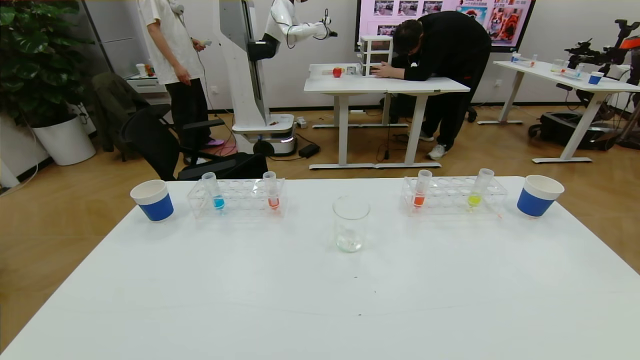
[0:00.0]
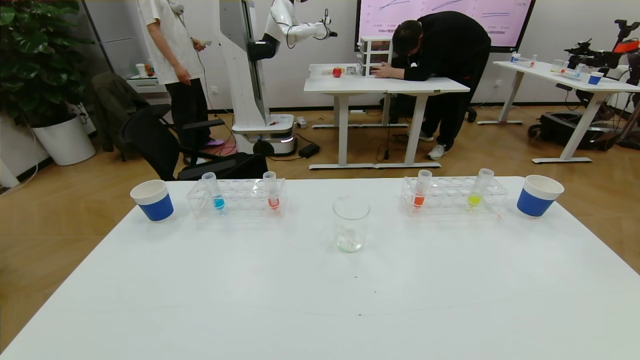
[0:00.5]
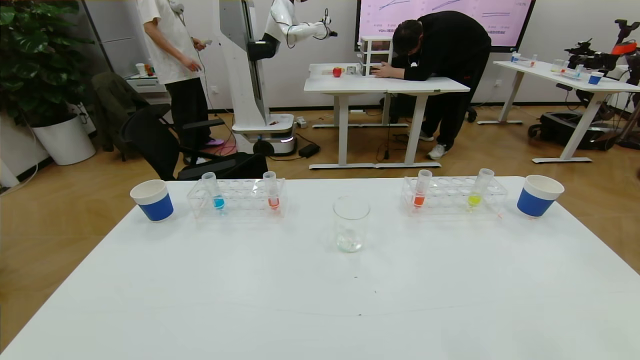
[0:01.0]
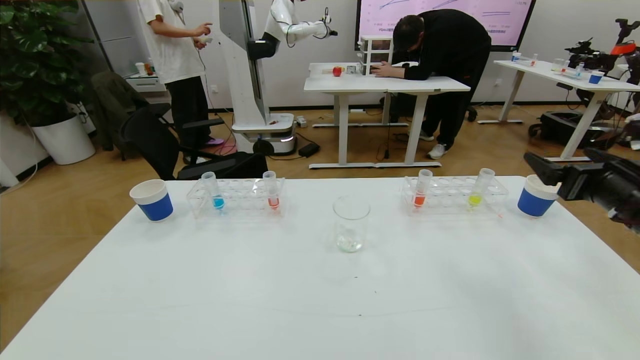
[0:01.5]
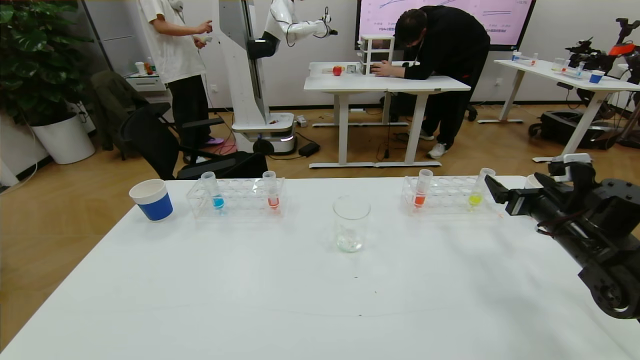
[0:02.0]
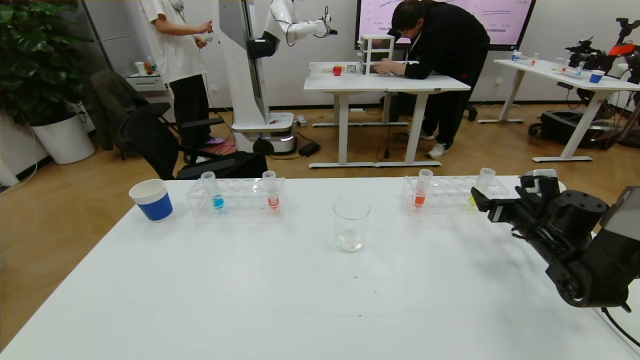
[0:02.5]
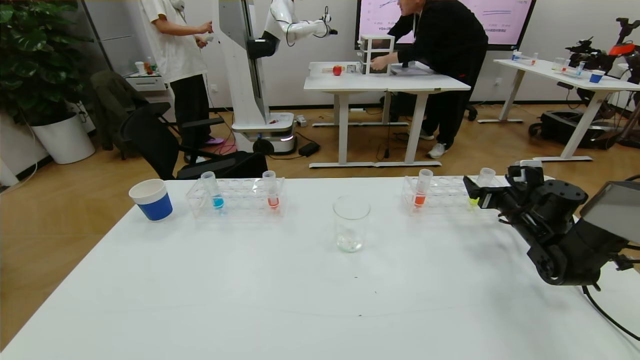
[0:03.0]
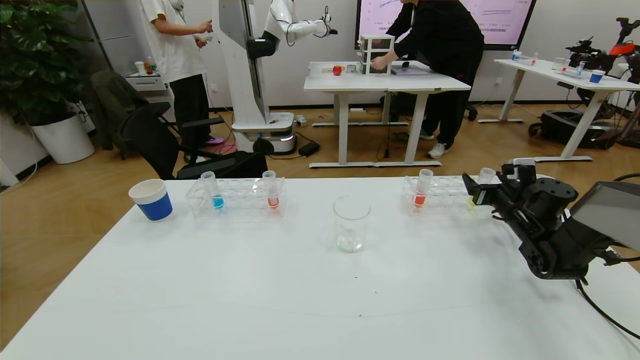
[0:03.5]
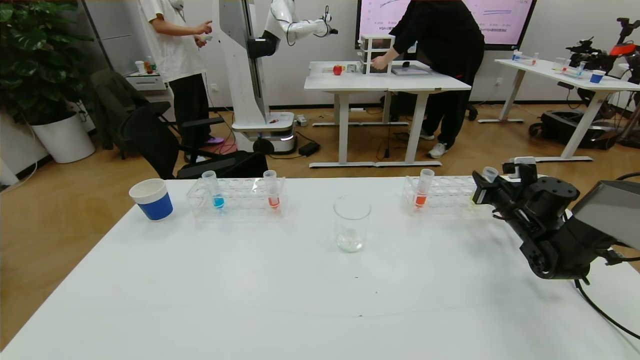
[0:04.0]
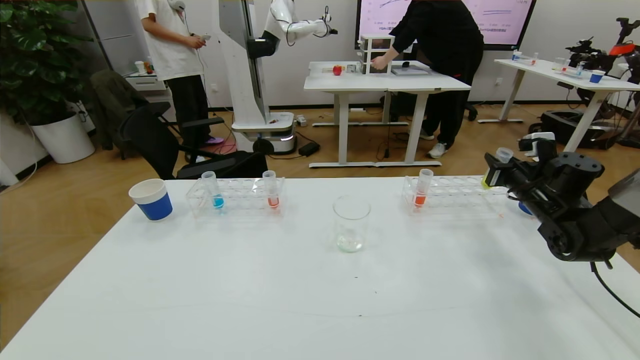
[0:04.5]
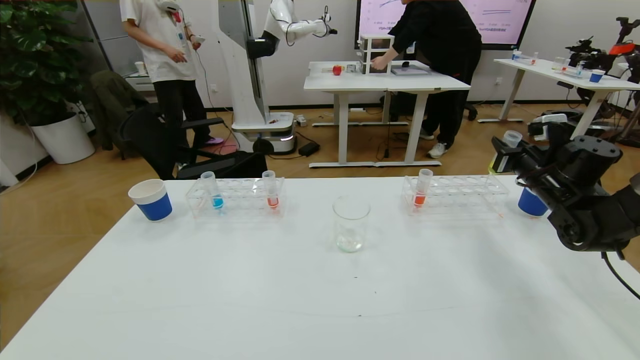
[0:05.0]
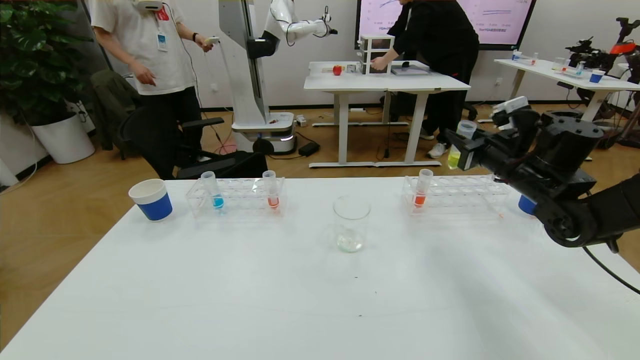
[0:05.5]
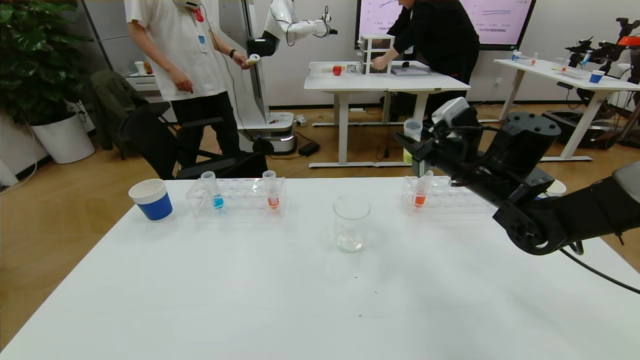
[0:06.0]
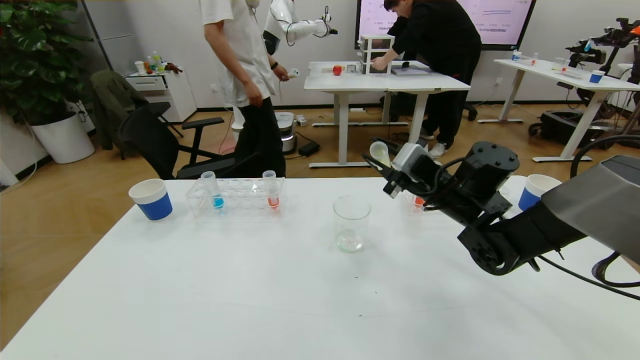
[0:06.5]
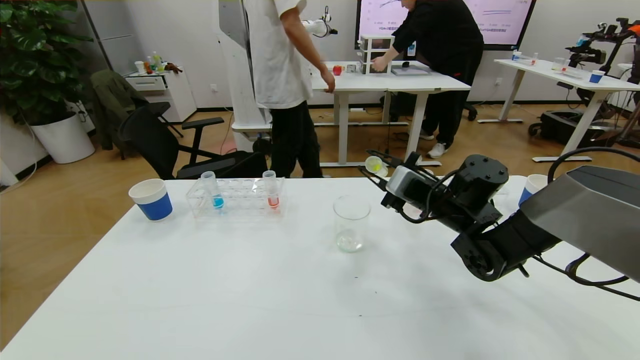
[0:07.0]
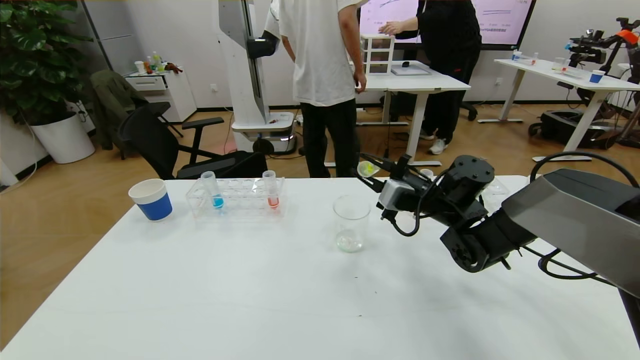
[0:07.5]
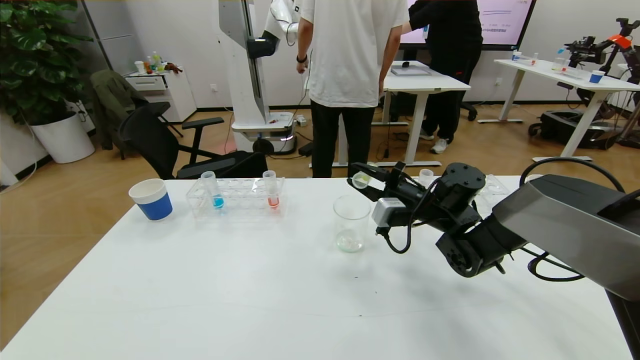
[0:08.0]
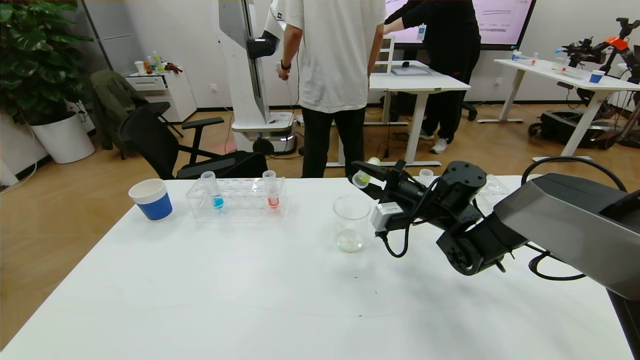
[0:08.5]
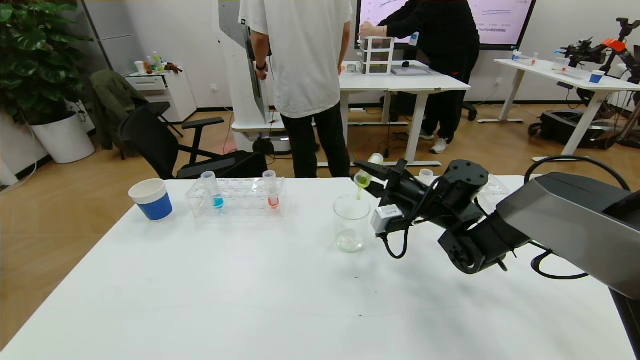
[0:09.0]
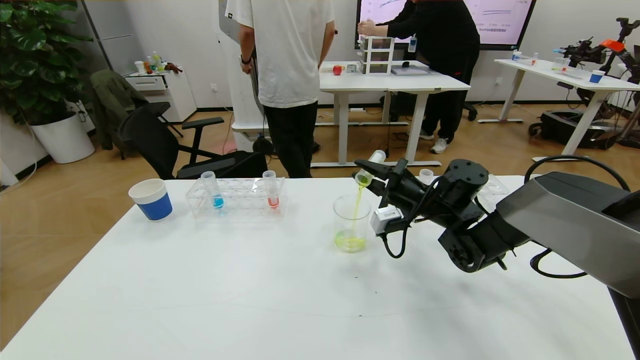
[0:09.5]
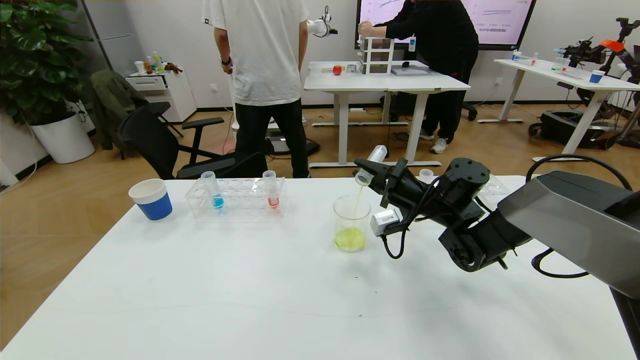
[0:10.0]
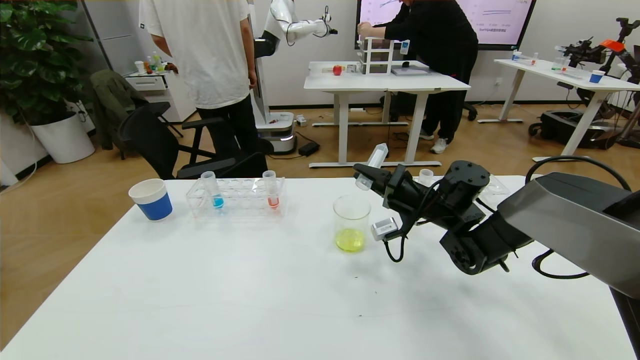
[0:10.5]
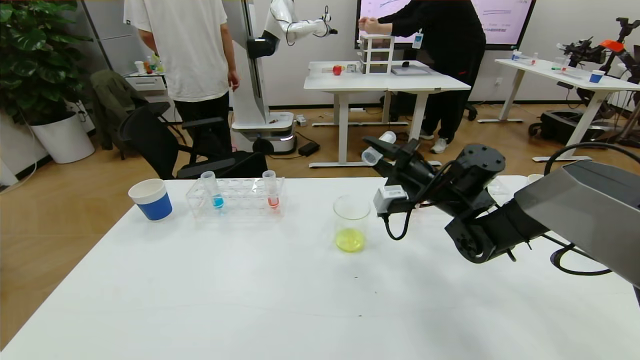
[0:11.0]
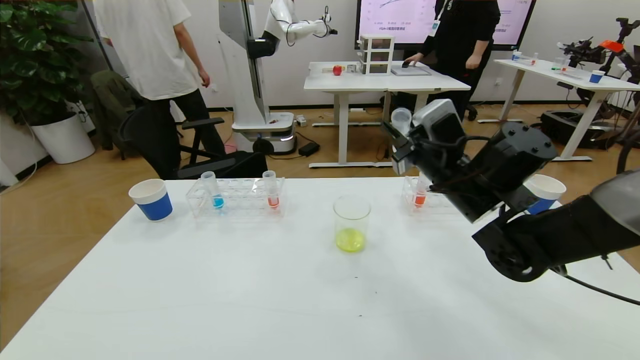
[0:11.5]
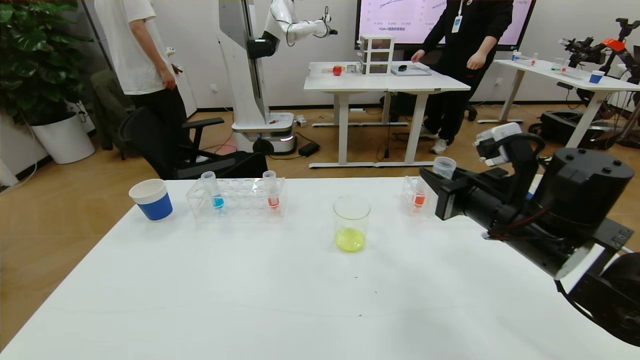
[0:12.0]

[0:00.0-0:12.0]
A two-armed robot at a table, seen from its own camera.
Task of the whole recording: pick up the test tube with yellow pigment and the test tube with blue pigment by grippers and pour them into the beaker.
0:00.0 to 0:02.0: The right gripper heads forward, covering approximately 35 cm.
0:02.0 to 0:04.0: The right gripper shifts about 10 cm forward, and closes its fingers.
0:04.0 to 0:06.0: The right gripper goes about 20 cm to the left and upward.
0:06.0 to 0:08.0: The right gripper is displaced downward by approximately 10 cm.
0:10.0 to 0:12.0: The right gripper heads backward and upward, covering roughly 15 cm.

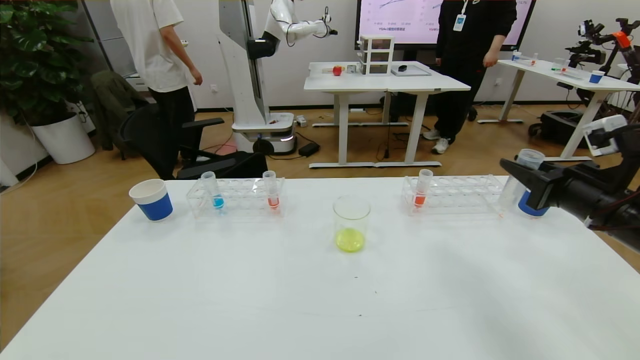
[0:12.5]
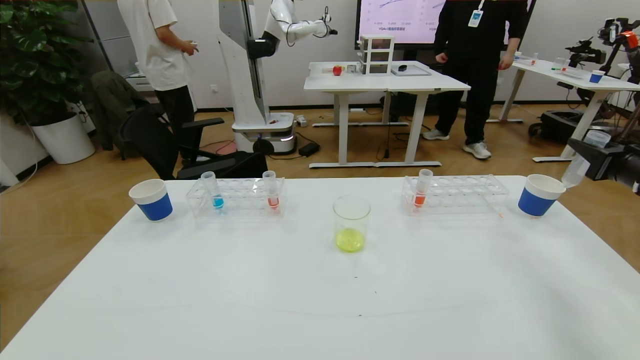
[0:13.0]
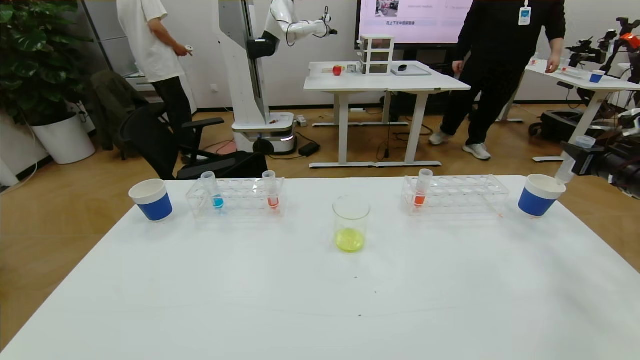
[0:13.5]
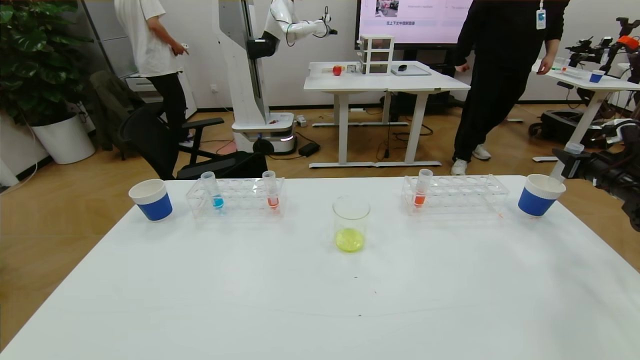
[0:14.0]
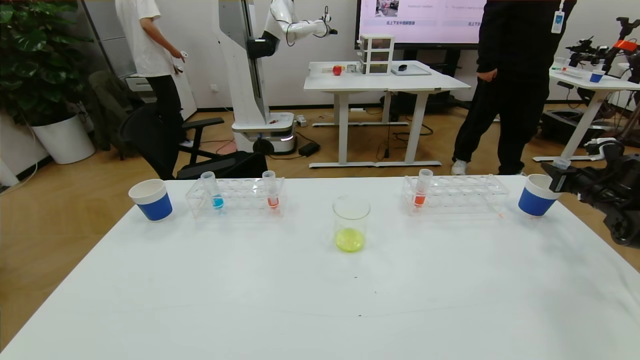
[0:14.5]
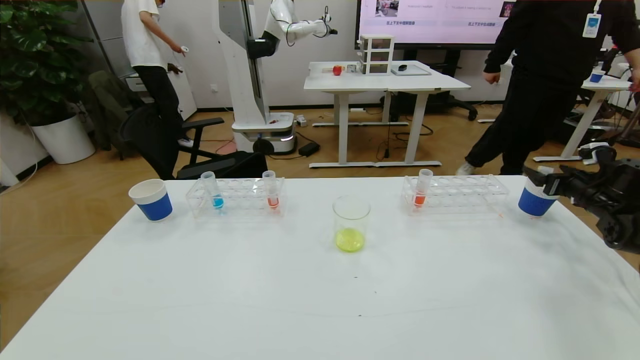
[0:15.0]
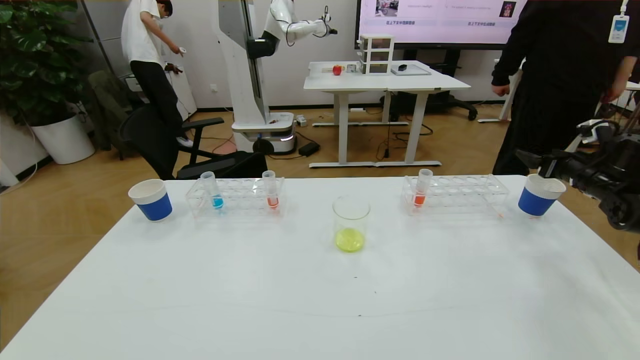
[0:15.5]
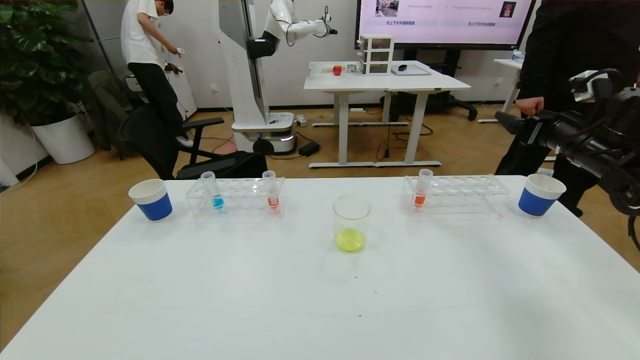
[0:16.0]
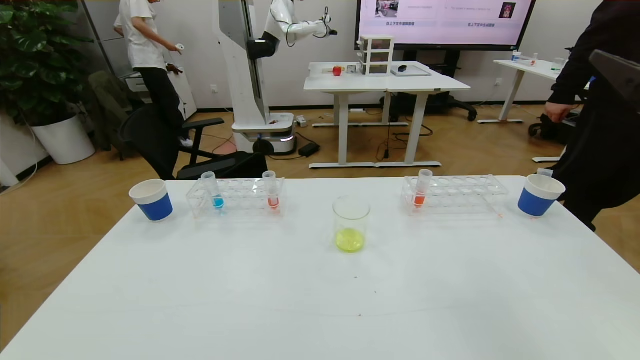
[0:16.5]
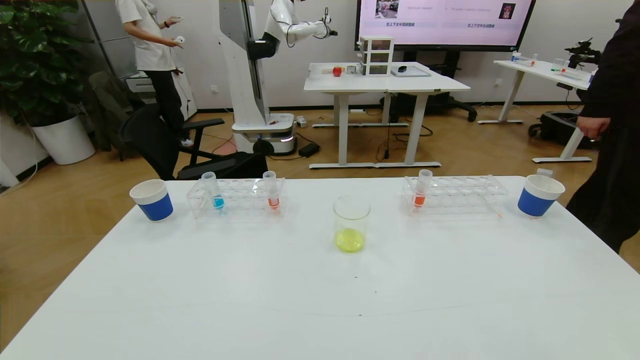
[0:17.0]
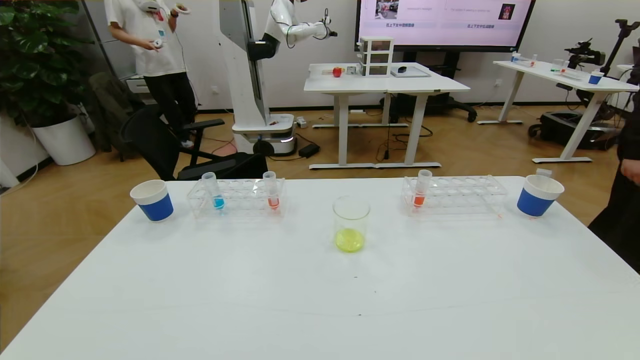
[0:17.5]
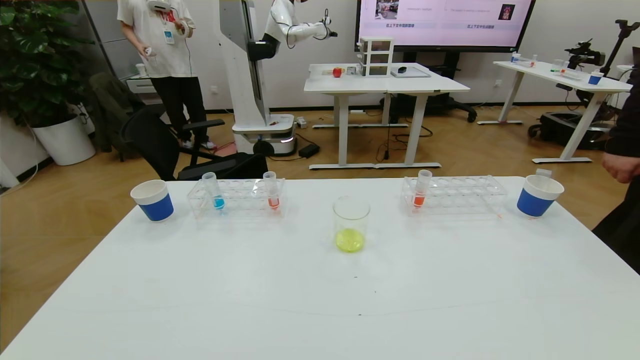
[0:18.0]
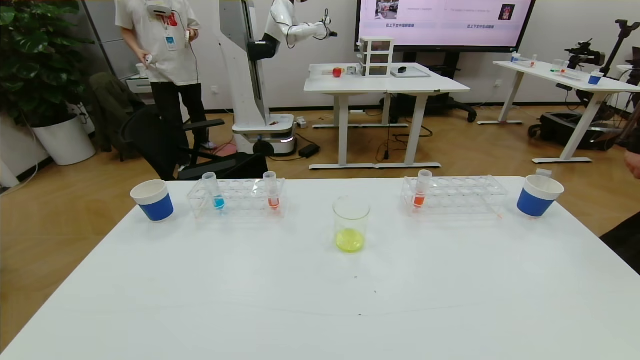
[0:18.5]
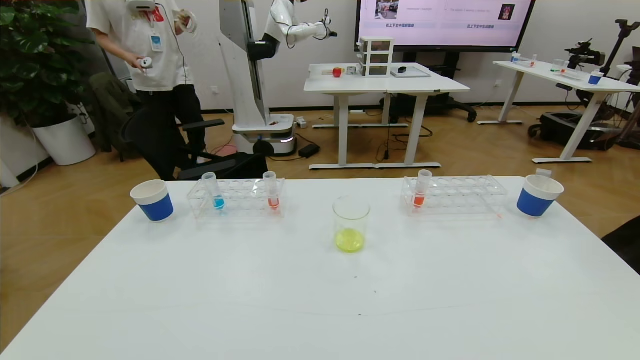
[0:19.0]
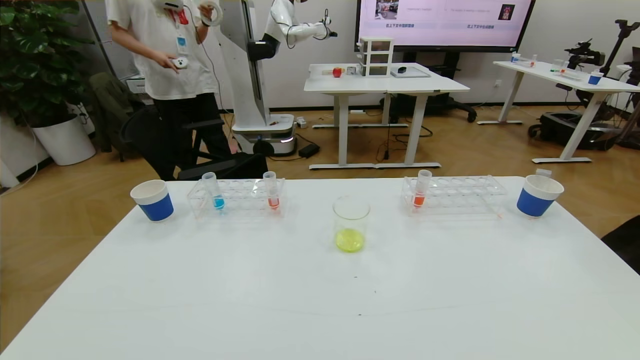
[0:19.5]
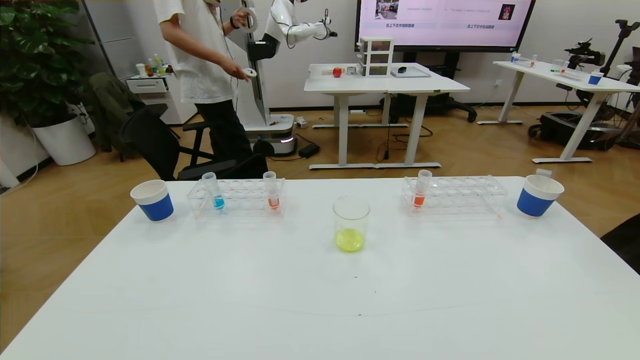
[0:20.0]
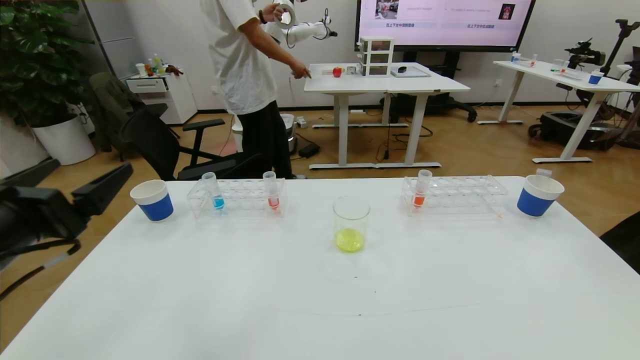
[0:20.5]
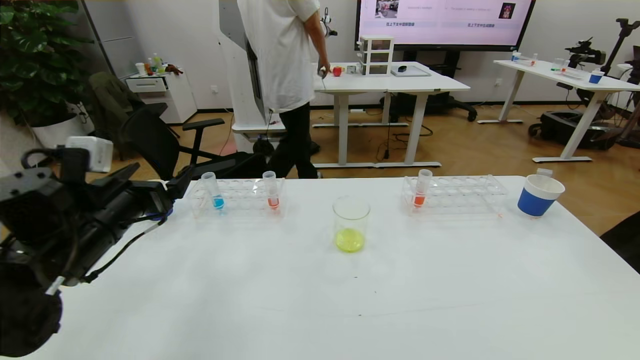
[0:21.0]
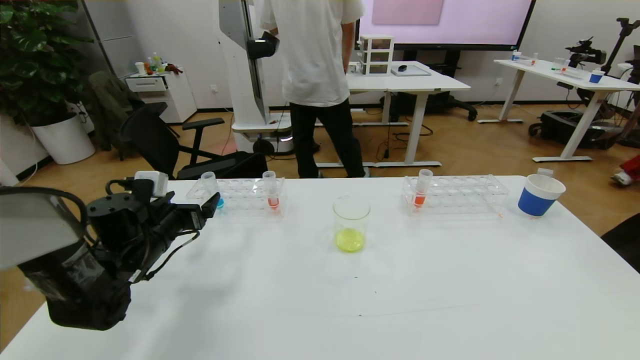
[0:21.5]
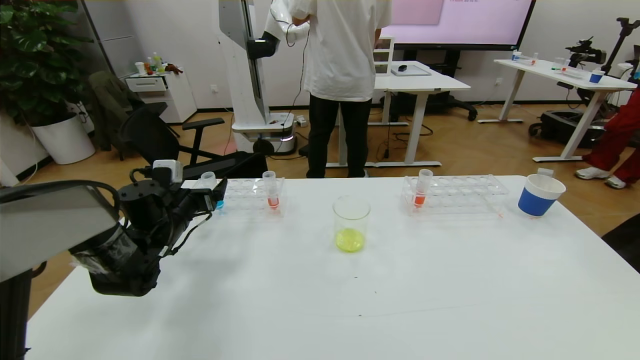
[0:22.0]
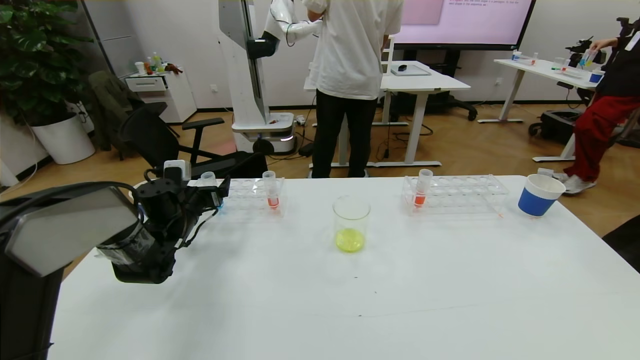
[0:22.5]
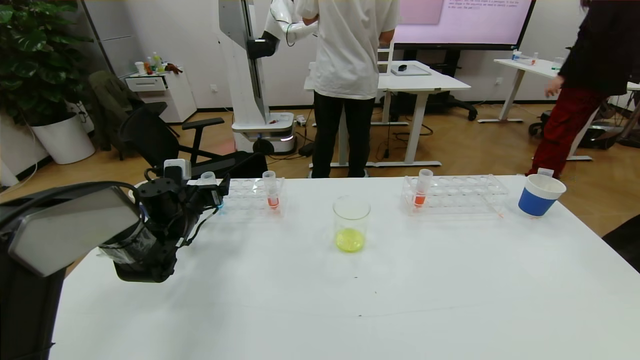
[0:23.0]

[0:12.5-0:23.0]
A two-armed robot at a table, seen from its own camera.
Task of the whole recording: pick up the test tube with yellow pigment and the test tube with blue pigment by grippers and pour them into the beaker.
Step, 0:12.5 to 0:18.0: Pour the yellow reagent into the graduated cylinder and place the test tube into the paper cup.
0:12.5 to 0:14.5: The right gripper goes approximately 25 cm to the right, forward and downward.
0:14.5 to 0:16.5: The right gripper heads backward, upward and to the left, covering some 35 cm, and opens its fingers.
0:16.5 to 0:19.0: The right gripper shifts about 35 cm downward and backward.
0:19.0 to 0:21.0: The left gripper heads forward, covering some 30 cm.
0:21.0 to 0:23.0: The left gripper moves forward and downward, about 20 cm.
